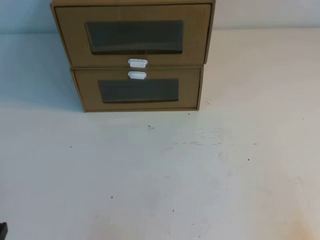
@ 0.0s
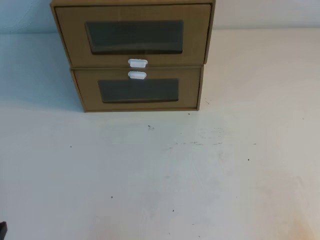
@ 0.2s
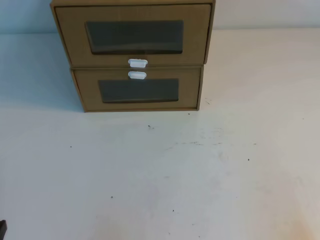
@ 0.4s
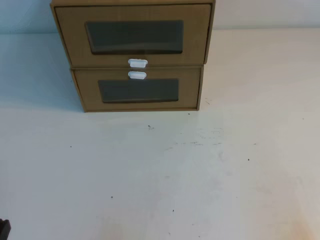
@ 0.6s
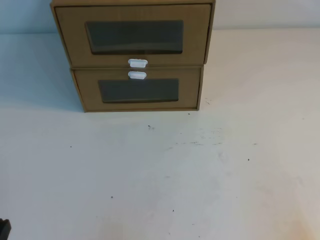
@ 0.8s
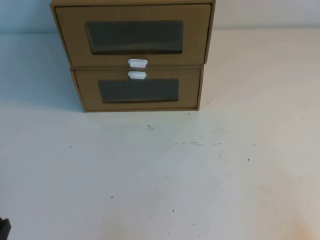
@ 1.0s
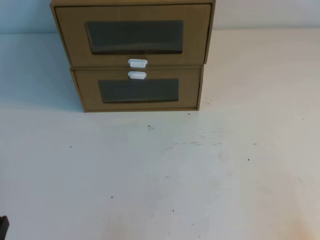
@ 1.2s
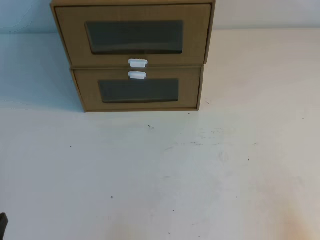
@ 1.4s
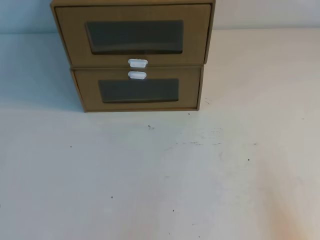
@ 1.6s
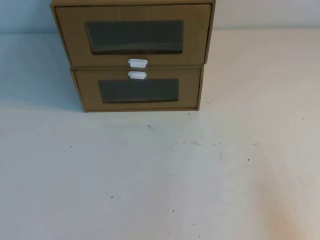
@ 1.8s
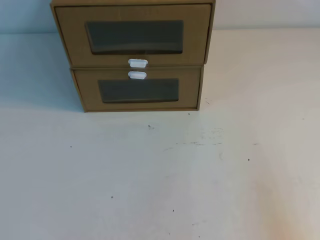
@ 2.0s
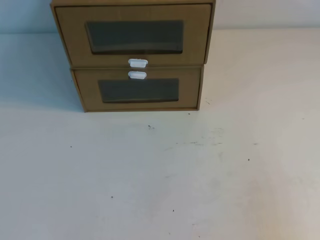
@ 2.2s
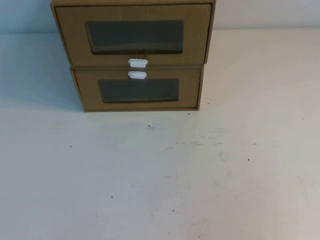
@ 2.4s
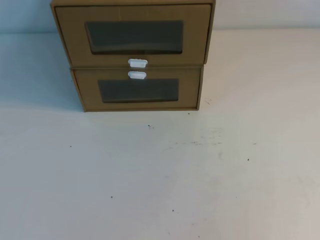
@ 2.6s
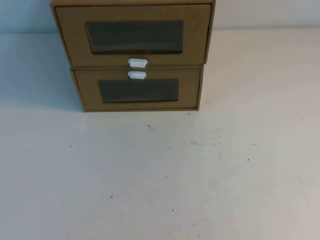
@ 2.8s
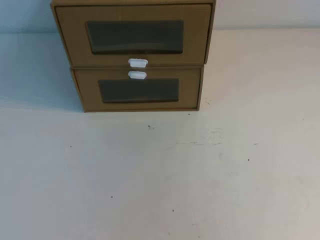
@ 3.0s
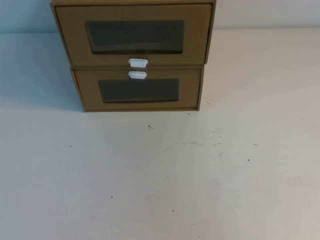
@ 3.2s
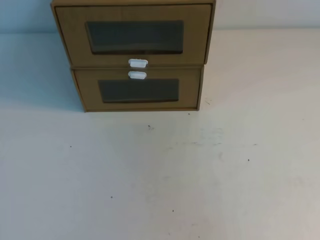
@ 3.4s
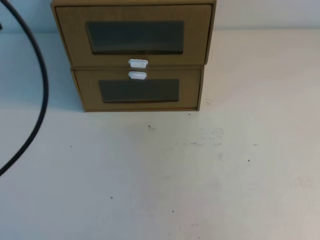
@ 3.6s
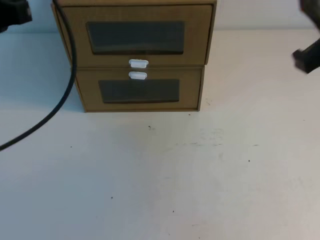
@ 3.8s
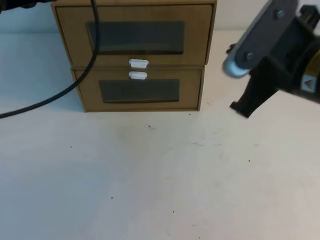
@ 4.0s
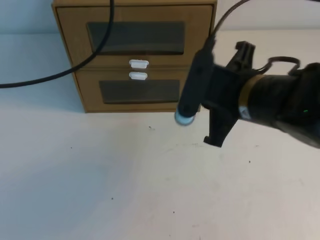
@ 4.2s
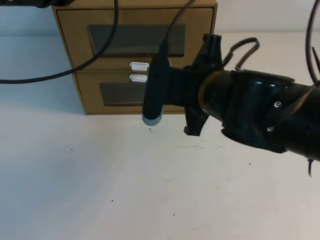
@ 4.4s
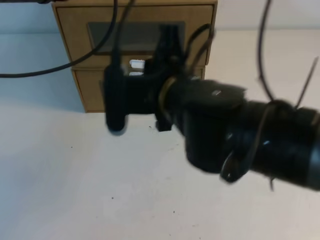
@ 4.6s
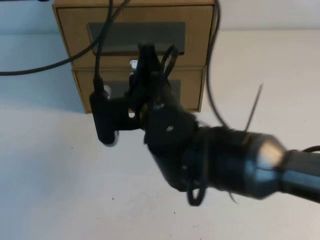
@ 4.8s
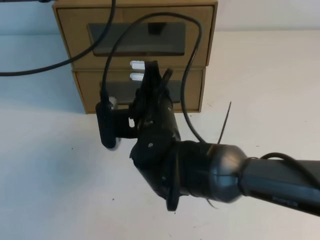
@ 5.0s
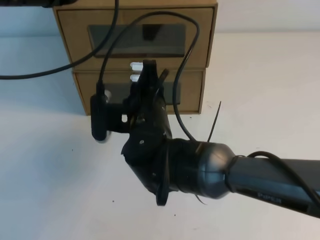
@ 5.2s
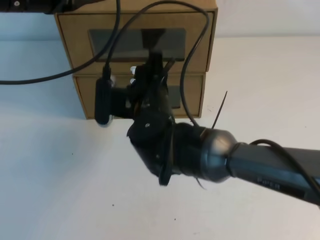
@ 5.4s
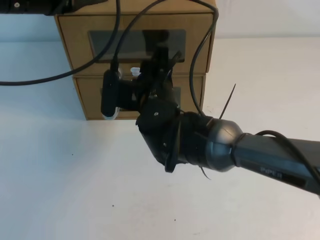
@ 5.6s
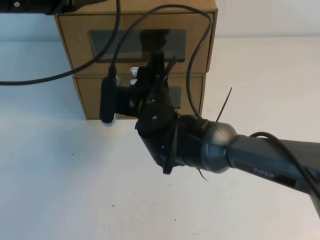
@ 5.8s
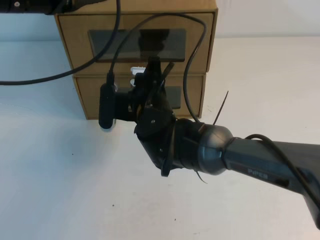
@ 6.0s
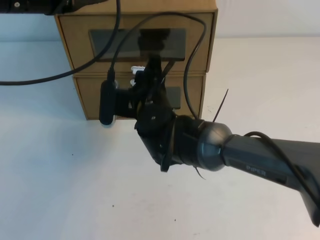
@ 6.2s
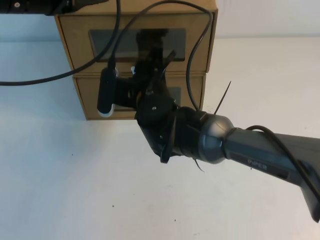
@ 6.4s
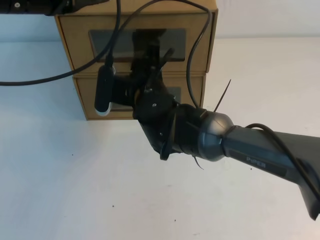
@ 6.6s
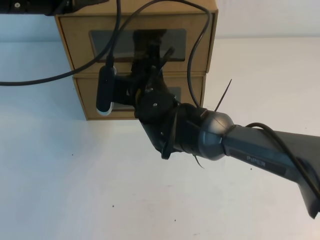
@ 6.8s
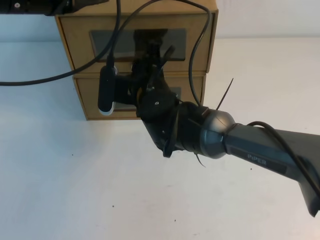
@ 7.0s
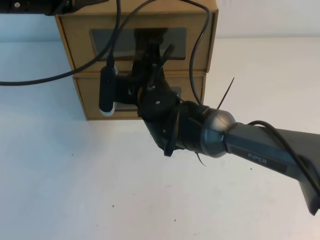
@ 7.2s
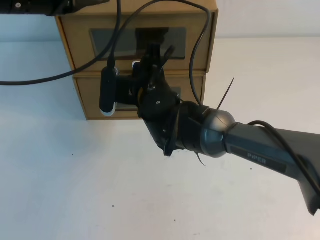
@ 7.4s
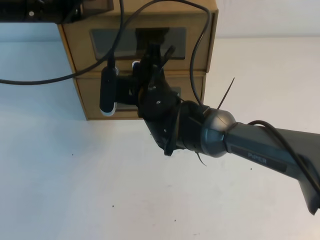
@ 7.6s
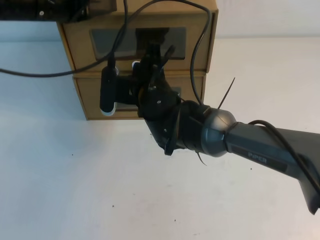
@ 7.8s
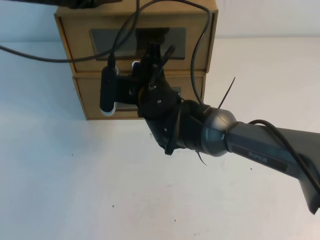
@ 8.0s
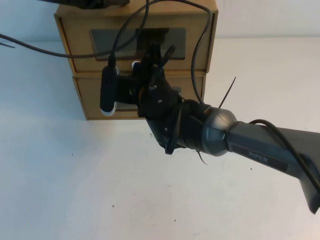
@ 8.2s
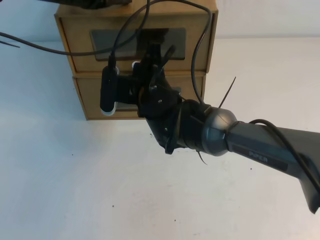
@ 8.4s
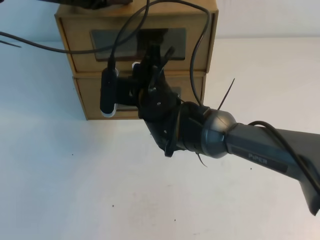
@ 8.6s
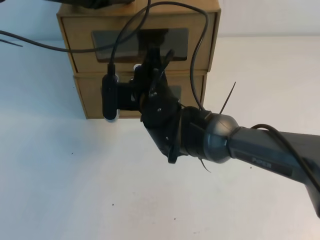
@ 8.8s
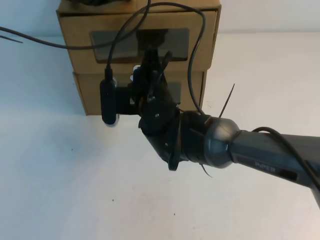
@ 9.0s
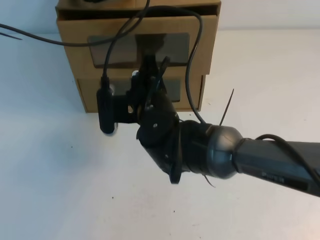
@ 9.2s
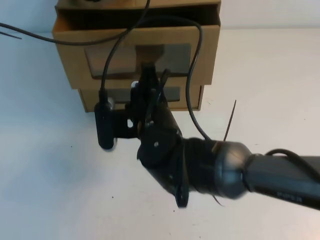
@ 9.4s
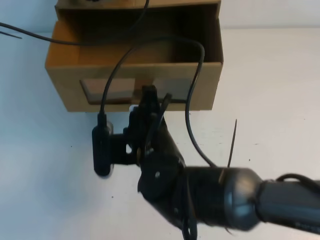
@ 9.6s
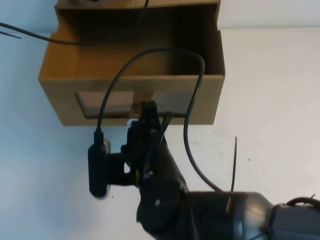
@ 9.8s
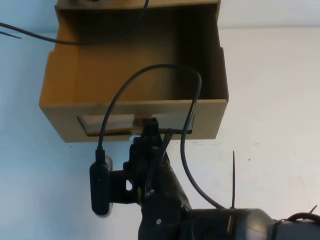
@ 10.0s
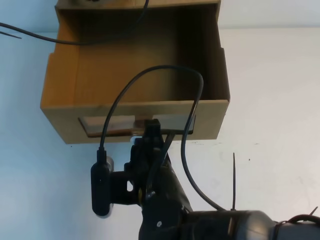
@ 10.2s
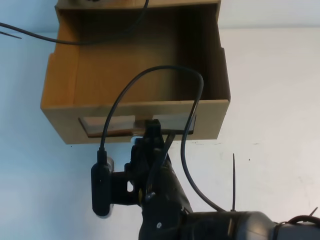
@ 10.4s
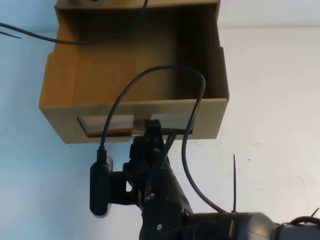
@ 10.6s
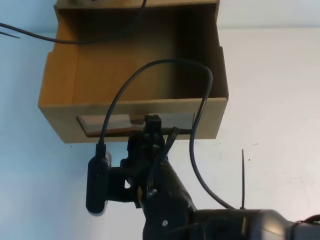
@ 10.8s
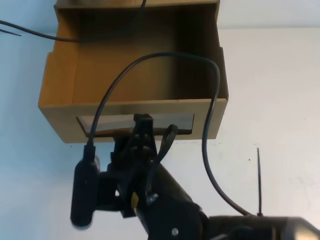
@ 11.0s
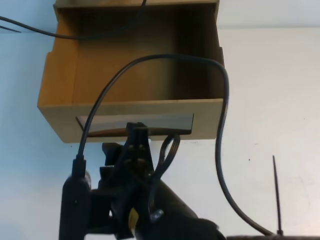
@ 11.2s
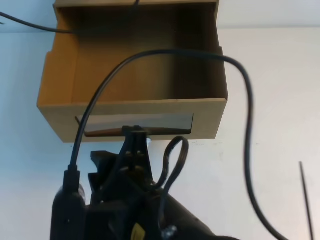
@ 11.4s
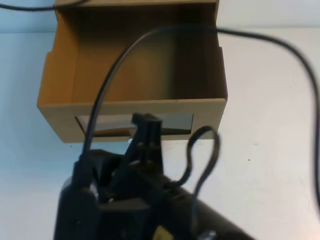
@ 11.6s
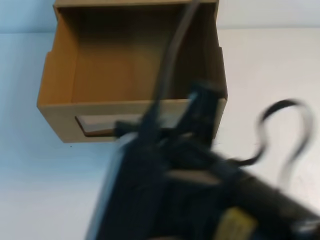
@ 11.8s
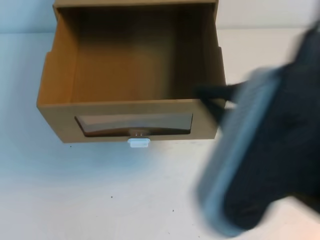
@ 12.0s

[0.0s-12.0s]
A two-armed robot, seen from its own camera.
Task of the whole recording: open the shoebox on the table.
3.0s to 4.4s: The left gripper travels forward by roughly 30 cm. The right gripper is displaced forward, to the left and downward by about 40 cm.
4.4s to 6.0s: The right gripper shifts roughly 15 cm to the left, downward and forward, and opens.
6.0s to 7.6s: The right gripper closes its fingers.
7.6s to 9.0s: The left gripper moves forward, about 10 cm.
9.0s to 10.4s: The right gripper is displaced backward by some 15 cm.
10.4s to 12.0s: The left gripper heads backward and upward, covering roughly 30 cm, while the right gripper shifts approximately 25 cm upward, to the right and backward, and opens and closes again.

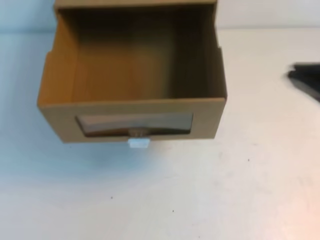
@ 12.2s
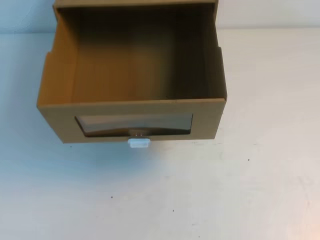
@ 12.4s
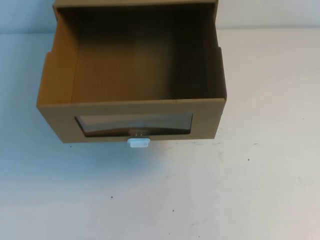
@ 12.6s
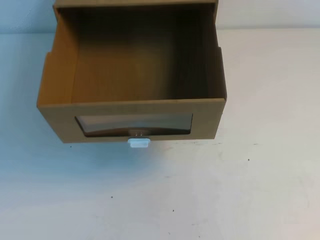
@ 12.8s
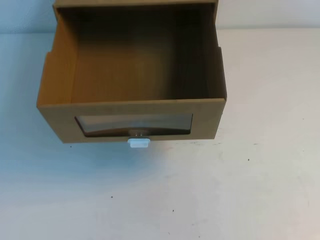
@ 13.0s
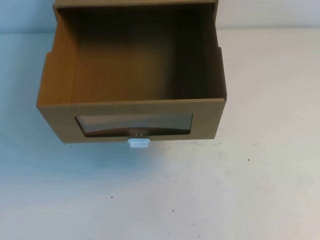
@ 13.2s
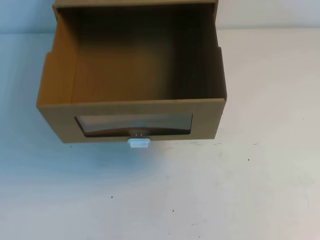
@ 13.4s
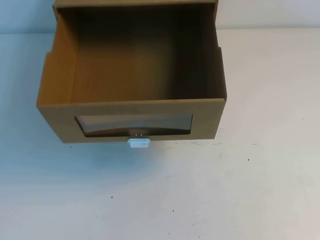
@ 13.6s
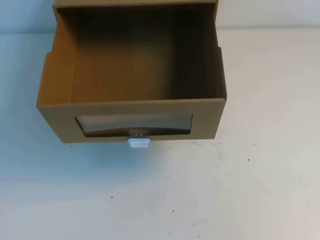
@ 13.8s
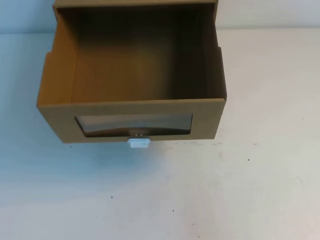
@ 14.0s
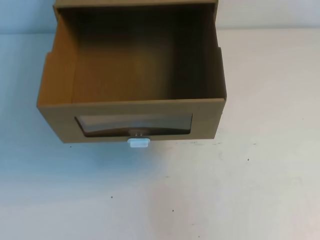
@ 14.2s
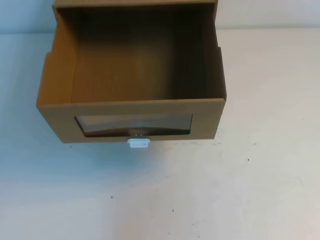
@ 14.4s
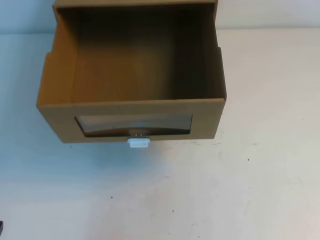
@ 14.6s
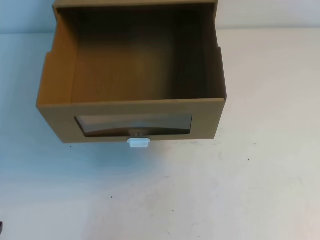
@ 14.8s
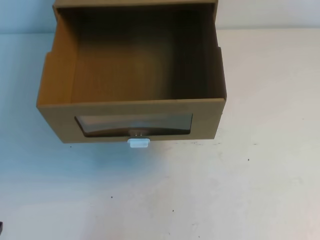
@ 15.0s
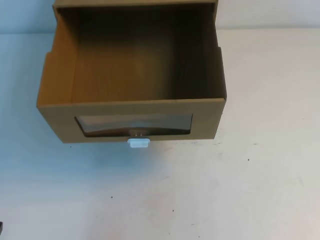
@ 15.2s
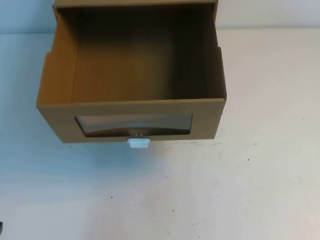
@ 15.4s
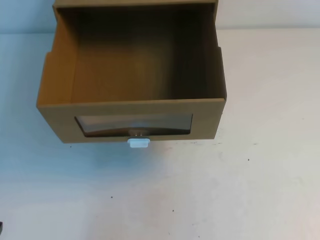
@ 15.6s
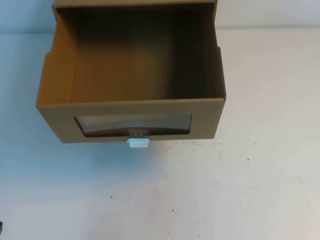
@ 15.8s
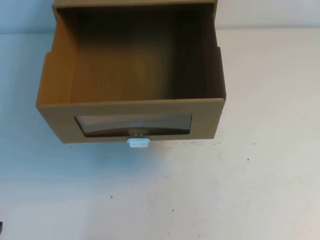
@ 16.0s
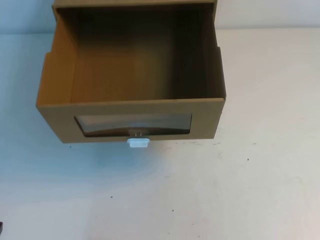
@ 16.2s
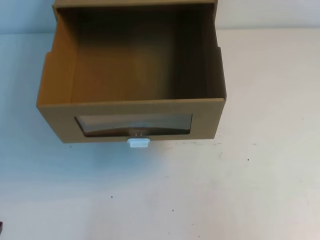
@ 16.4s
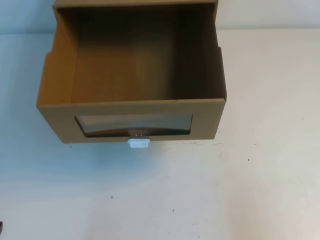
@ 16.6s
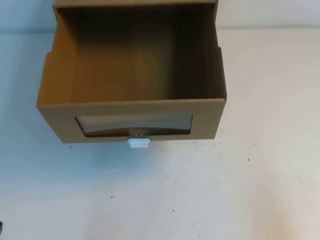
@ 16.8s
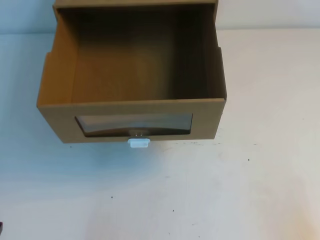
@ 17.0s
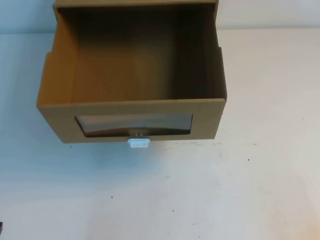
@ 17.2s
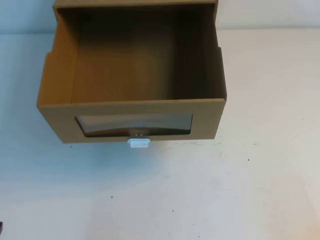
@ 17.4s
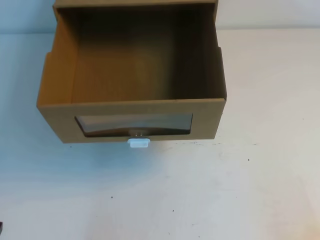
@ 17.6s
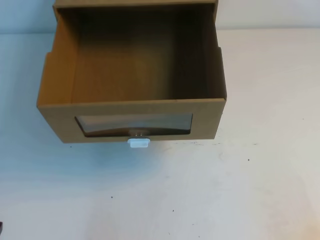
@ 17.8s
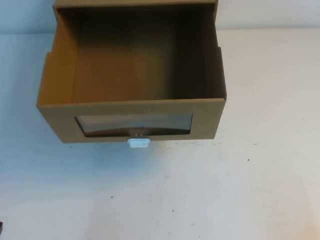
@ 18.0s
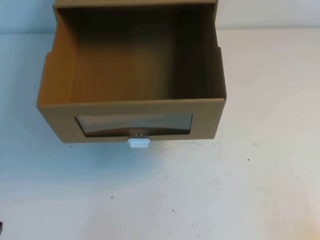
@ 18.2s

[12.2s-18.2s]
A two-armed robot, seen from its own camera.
Task of the whole recording: open the shoebox on the table.
Step, 12.2s to 18.2s: Open the shoe box.
12.2s to 13.8s: The right gripper heads to the right, covering roughly 15 cm. The left gripper heads downward and backward, covering roughly 30 cm.
16.6s to 18.2s: The right gripper moves downward, approximately 15 cm.

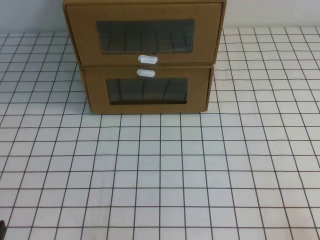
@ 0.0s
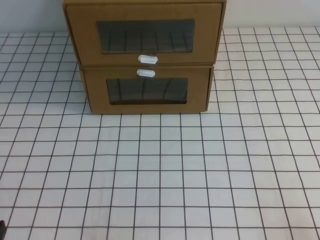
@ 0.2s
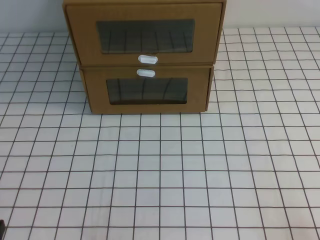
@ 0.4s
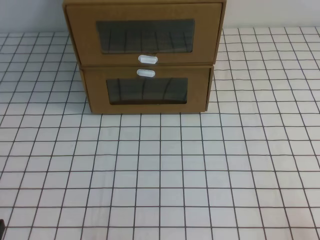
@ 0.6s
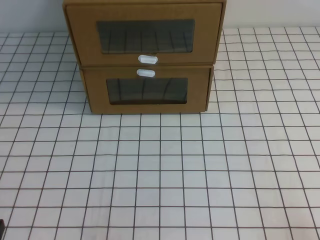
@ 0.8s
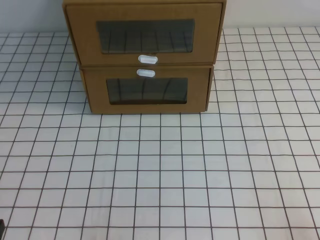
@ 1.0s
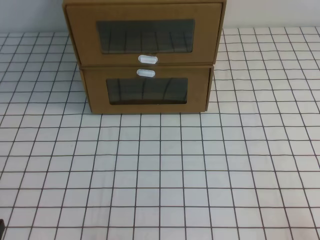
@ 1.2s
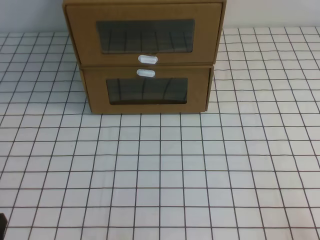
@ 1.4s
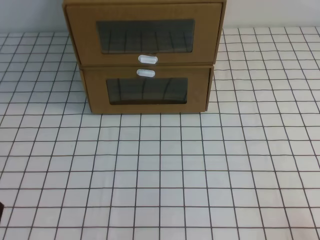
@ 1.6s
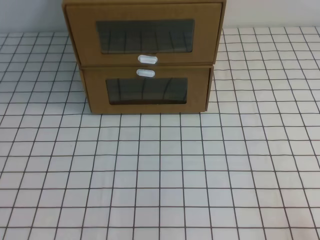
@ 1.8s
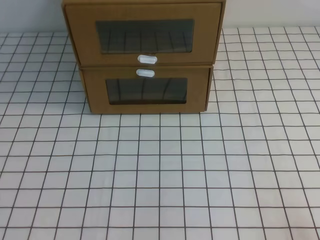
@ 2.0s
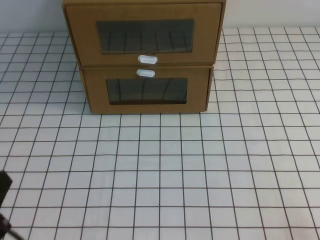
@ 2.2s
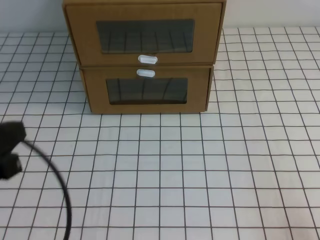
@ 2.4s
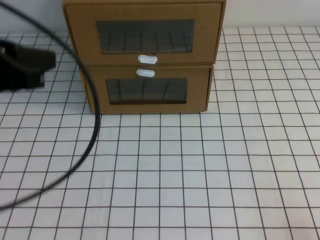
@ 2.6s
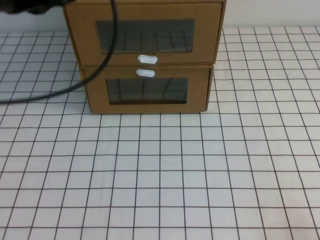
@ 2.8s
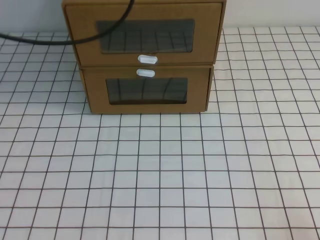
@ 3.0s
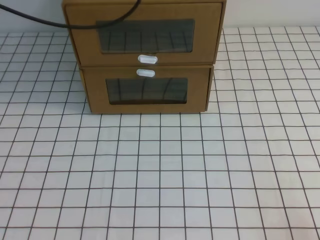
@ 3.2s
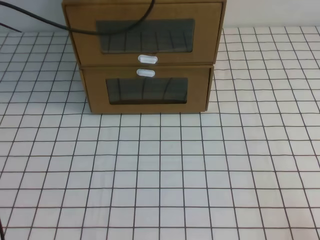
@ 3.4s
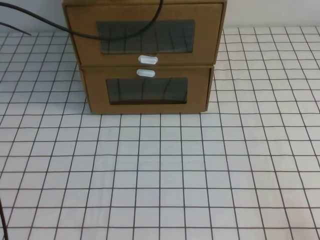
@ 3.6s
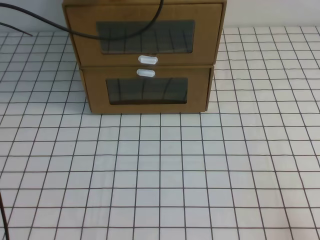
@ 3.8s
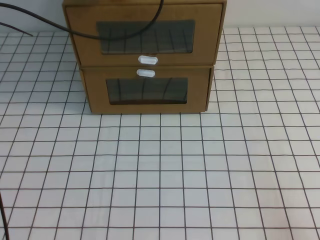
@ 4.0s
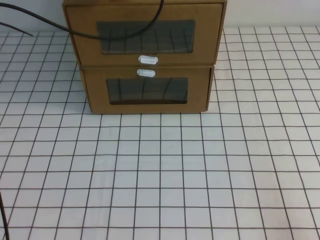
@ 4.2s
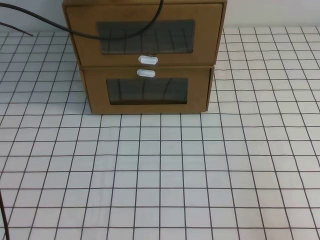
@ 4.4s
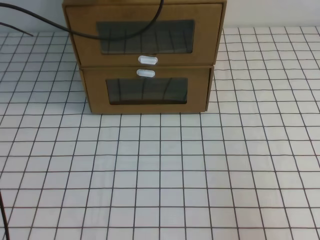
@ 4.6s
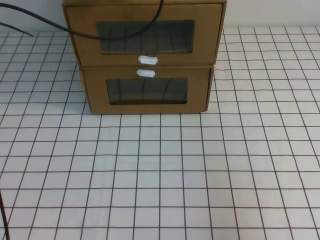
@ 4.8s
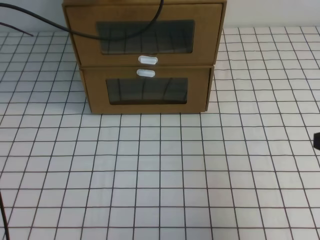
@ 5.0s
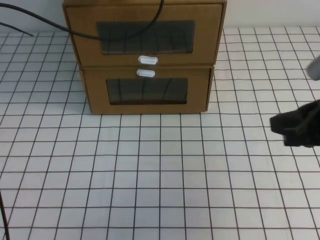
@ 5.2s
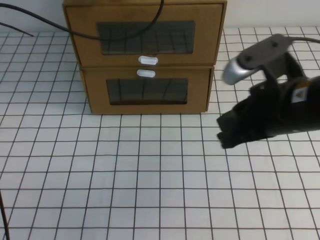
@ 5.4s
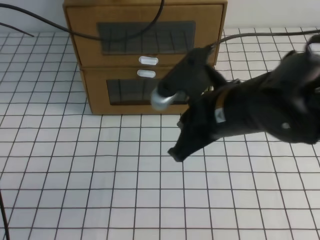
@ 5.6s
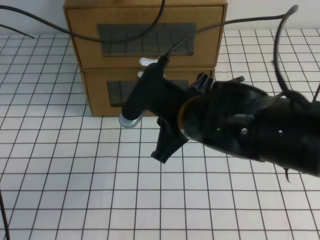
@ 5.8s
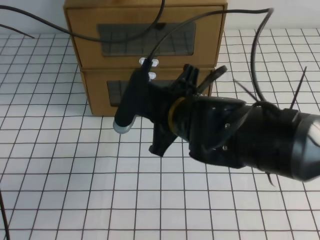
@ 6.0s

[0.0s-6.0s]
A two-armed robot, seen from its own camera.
Task of the whole recording: open the shoebox on the white tablecloth.
1.6s to 3.0s: The left gripper goes some 40 cm forward and upward.
3.0s to 4.4s: The right gripper moves upward, about 5 cm, while the left gripper heads forward and downward, covering some 10 cm.
4.4s to 6.0s: The right gripper is displaced to the left and forward by roughly 35 cm.
